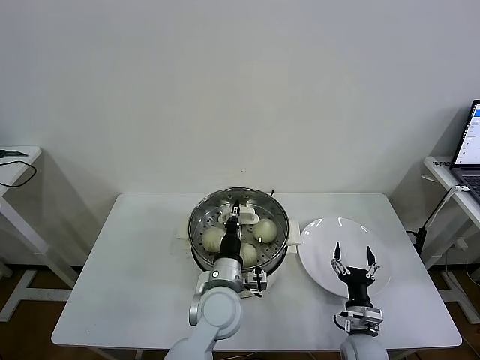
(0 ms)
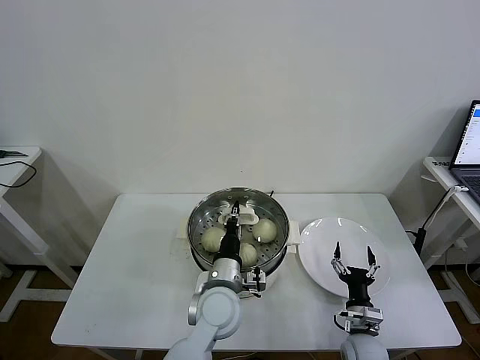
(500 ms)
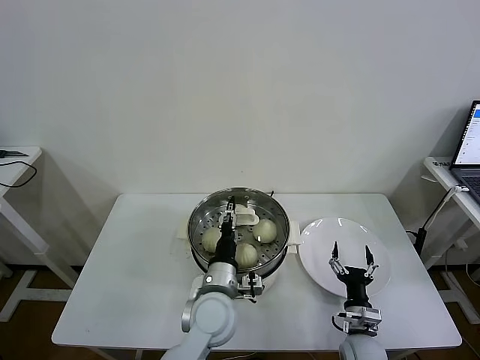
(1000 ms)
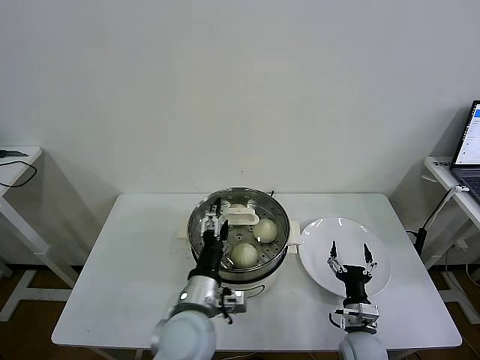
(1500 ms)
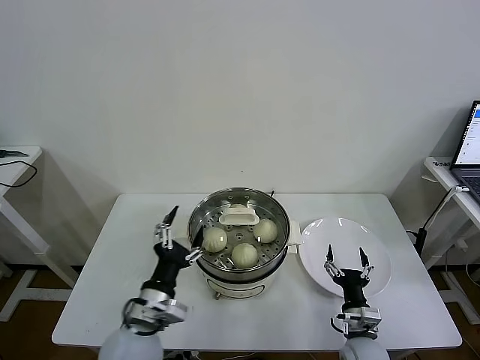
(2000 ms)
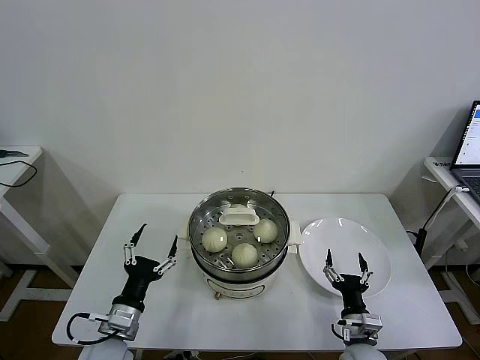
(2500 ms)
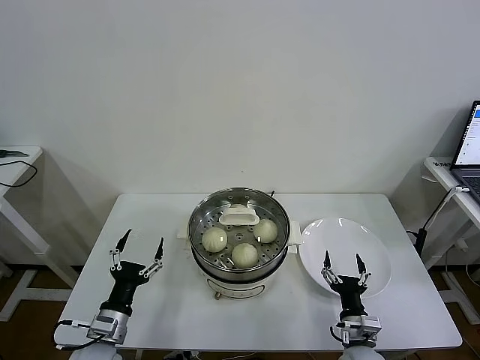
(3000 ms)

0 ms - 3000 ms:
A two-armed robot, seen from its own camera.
Task of the whole recording: take steamed baozi put them in steamer then cover it.
0 ms - 1500 ms: The left gripper goes about 5 cm backward, and opens up.
1500 ms - 3000 ms: The left gripper heads to the left and downward, covering approximately 20 cm.

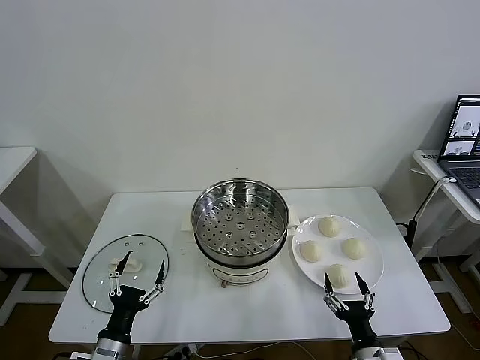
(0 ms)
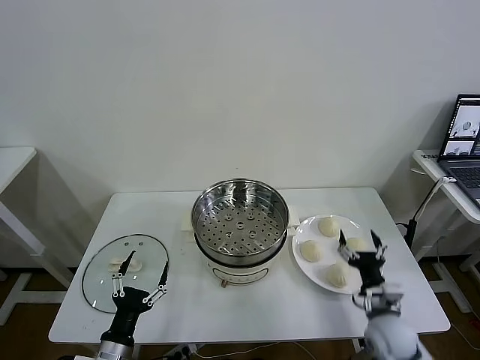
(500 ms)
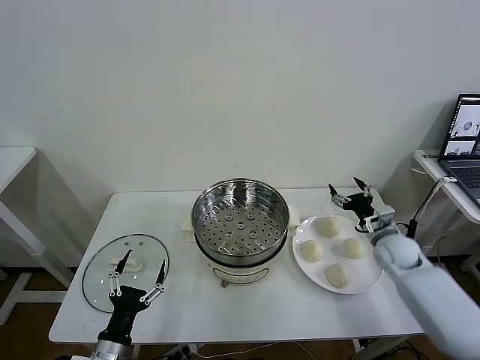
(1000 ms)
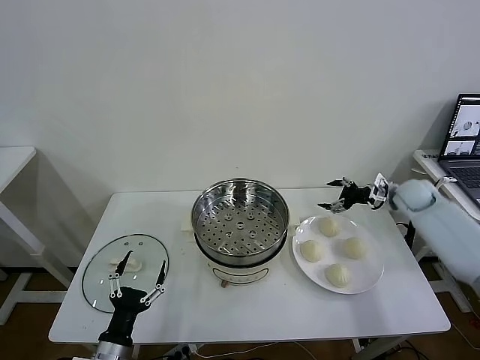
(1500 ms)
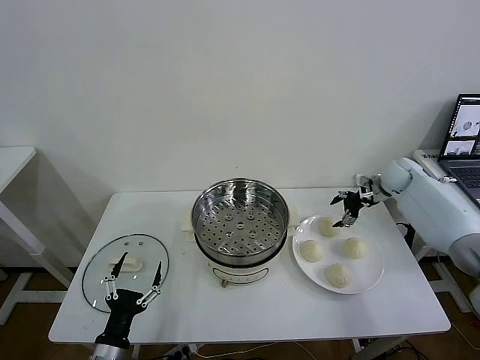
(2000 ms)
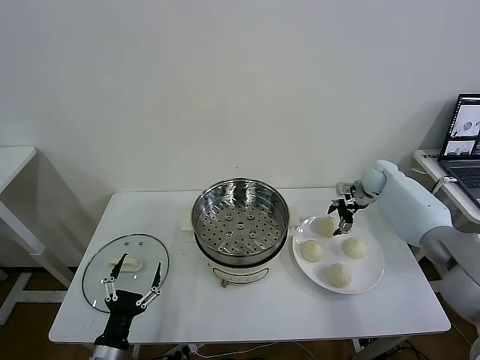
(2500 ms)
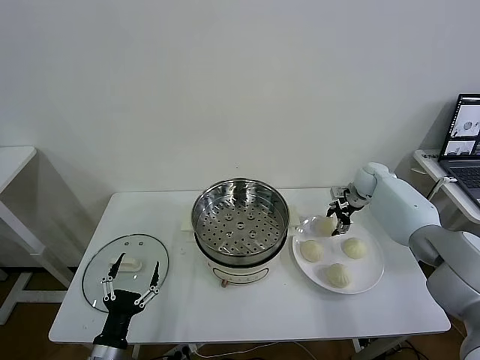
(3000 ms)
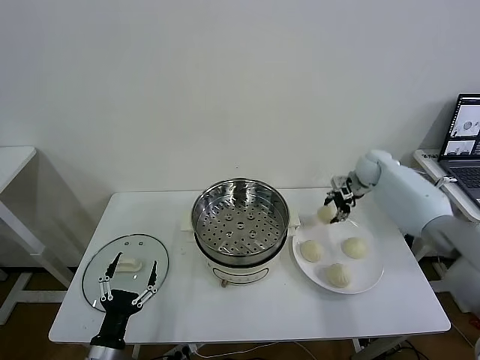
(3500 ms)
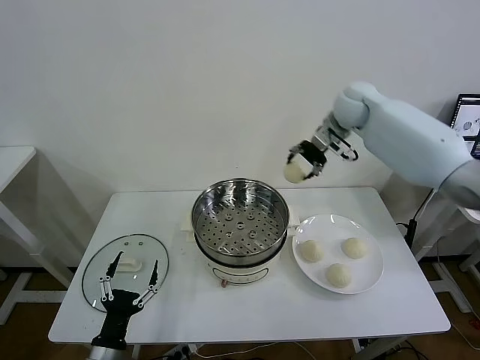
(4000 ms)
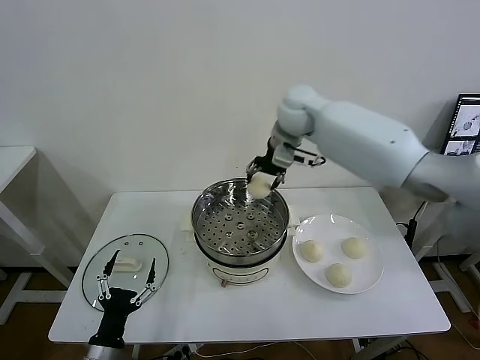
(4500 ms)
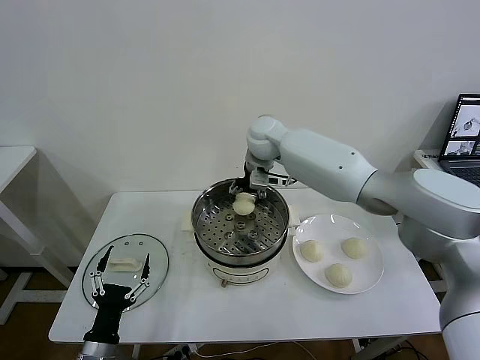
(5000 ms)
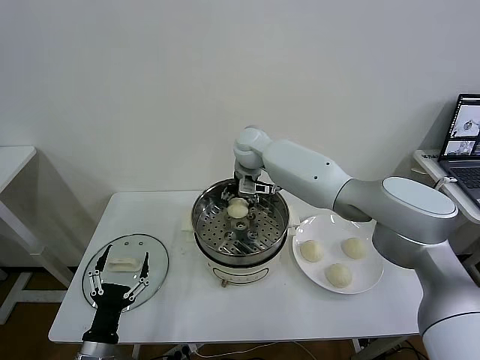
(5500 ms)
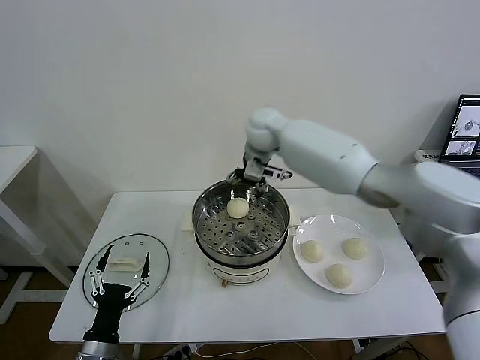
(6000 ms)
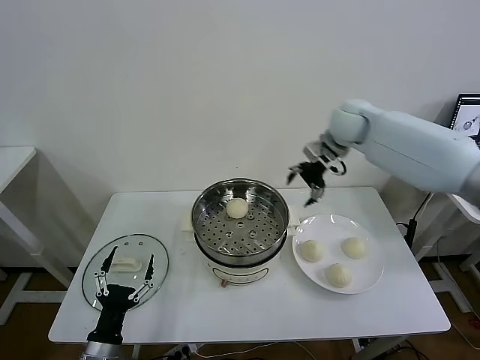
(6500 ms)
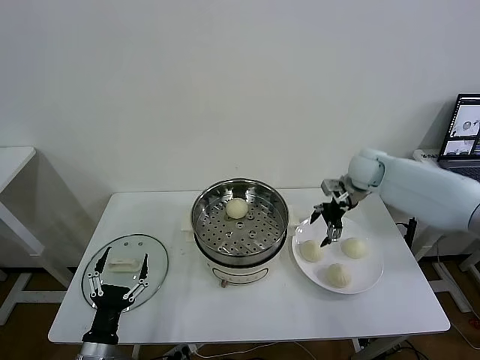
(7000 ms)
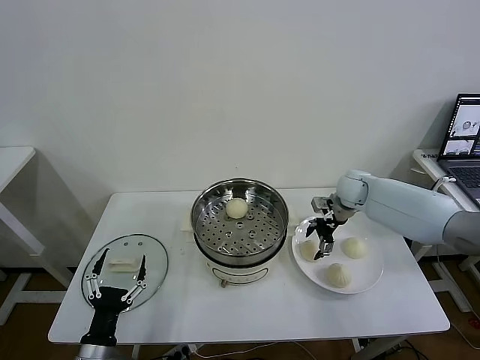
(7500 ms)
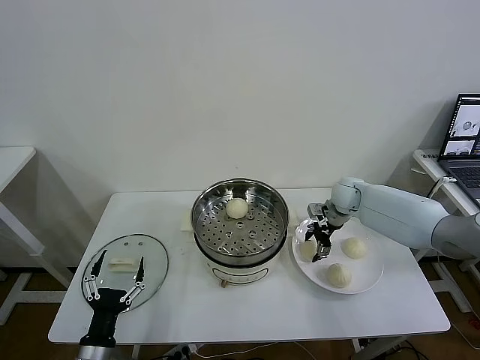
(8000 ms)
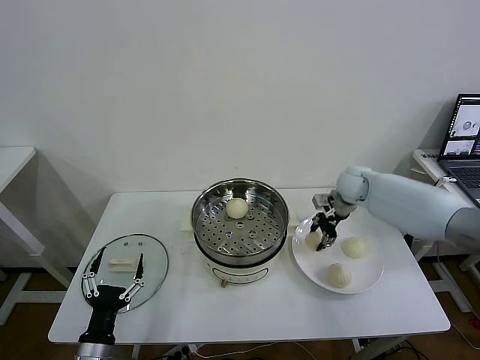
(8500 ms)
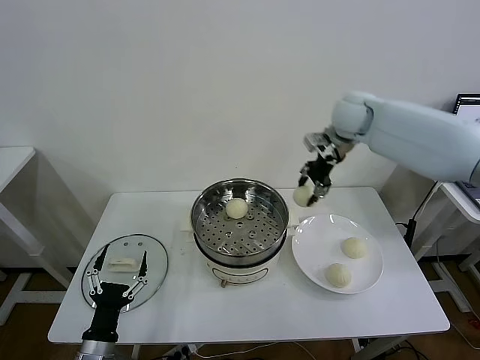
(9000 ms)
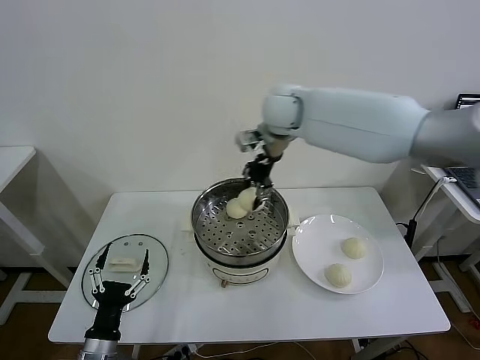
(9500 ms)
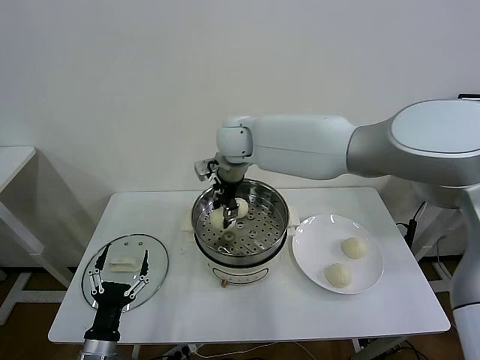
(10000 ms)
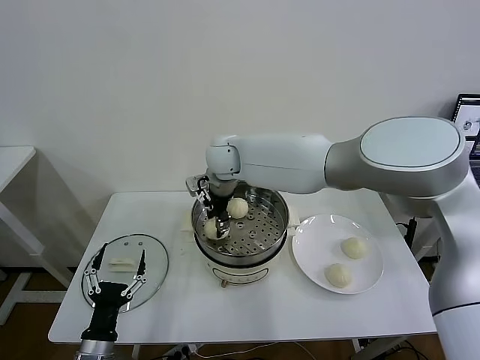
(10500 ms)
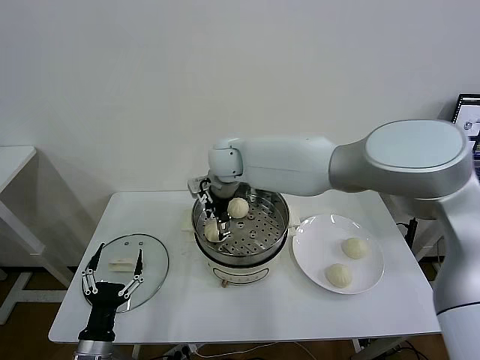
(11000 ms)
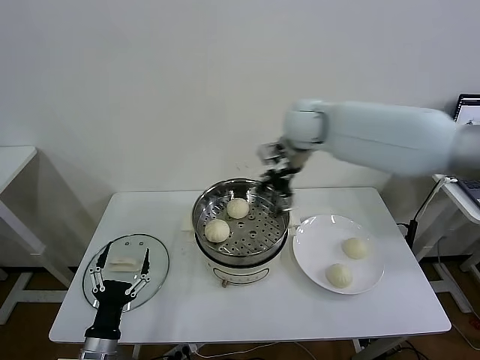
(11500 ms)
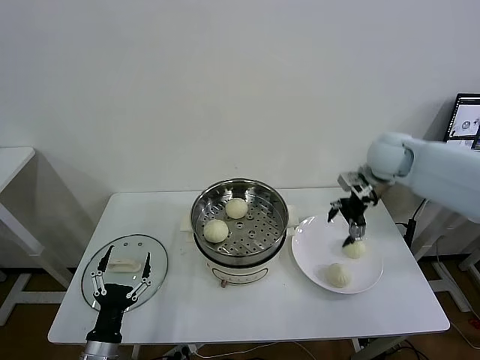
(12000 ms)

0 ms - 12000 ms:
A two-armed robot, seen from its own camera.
Task of the whole recording: take steamed baozi put them in steamer then cover it.
Step, 0 ms - 3000 ms: Grasp the baozi in the plate with right gripper.
Step, 3500 ms - 5500 ms: Place the baozi on the steamer with right gripper.
Step, 6000 ms - 8000 ms: Grasp the baozi in the plate with right gripper.
Step, 8500 ms - 10500 ms: Place the baozi on the steamer with right gripper.
2000 ms - 4000 ms: The right gripper moves upward and to the left, approximately 30 cm, and closes up.
4000 ms - 6000 ms: The right gripper goes roughly 15 cm to the left, and opens.
6000 ms - 8000 ms: The right gripper is displaced downward and to the right by about 30 cm, and closes its fingers.
8000 ms - 10000 ms: The right gripper heads to the left and upward, covering approximately 35 cm, and closes its fingers.
10000 ms - 12000 ms: The right gripper travels to the right by about 35 cm, and opens up.

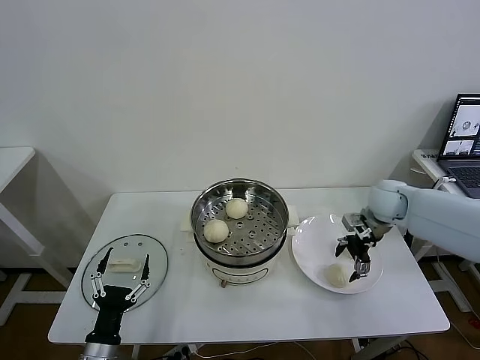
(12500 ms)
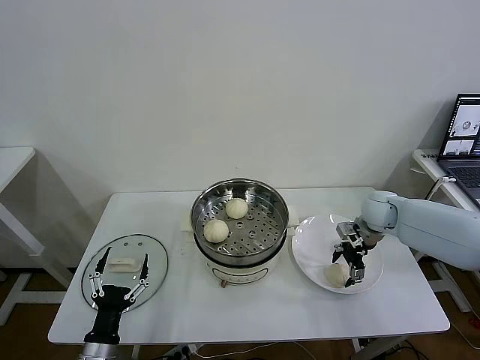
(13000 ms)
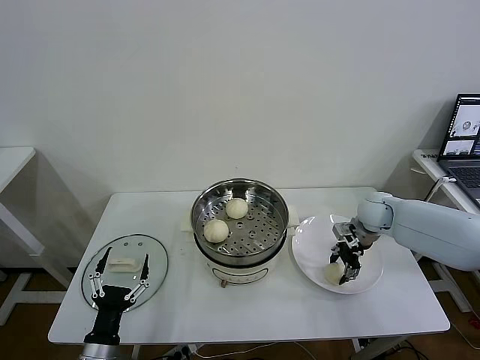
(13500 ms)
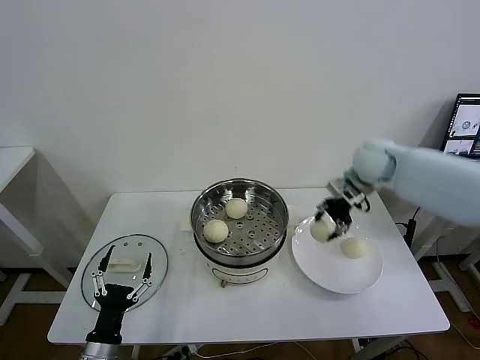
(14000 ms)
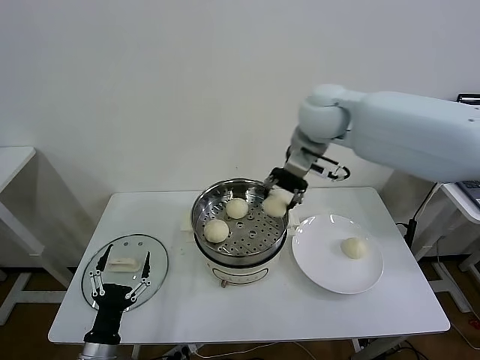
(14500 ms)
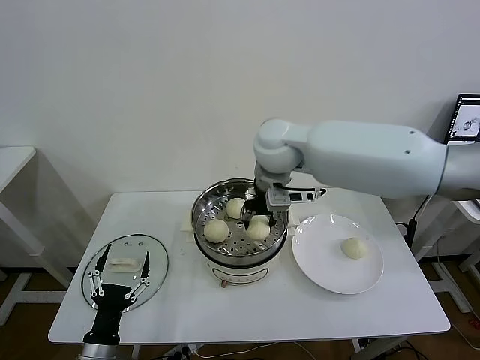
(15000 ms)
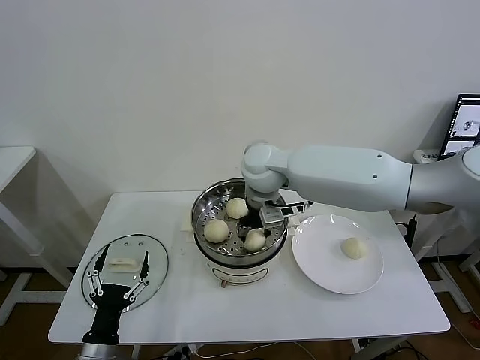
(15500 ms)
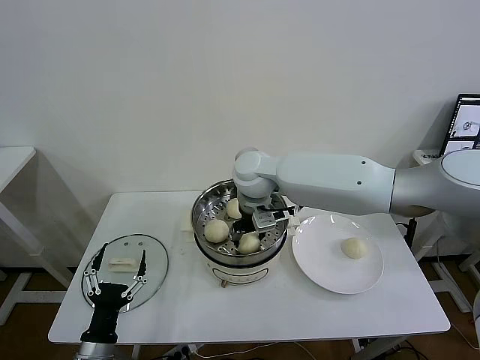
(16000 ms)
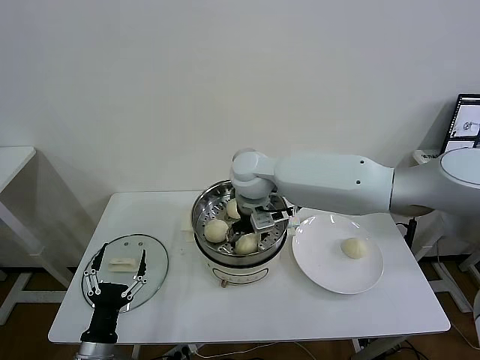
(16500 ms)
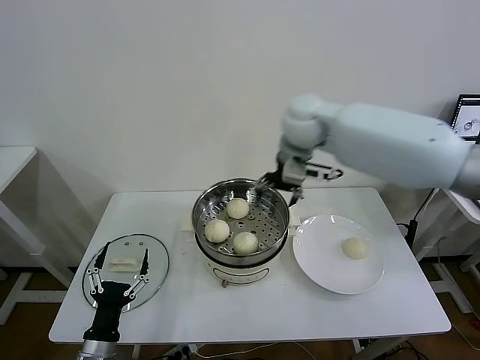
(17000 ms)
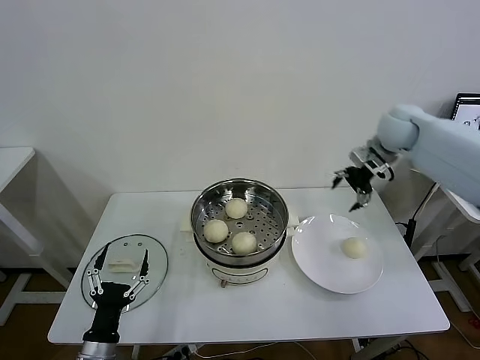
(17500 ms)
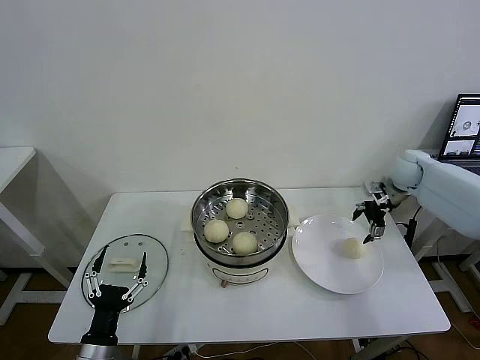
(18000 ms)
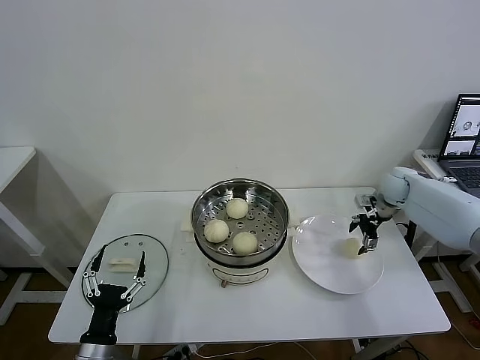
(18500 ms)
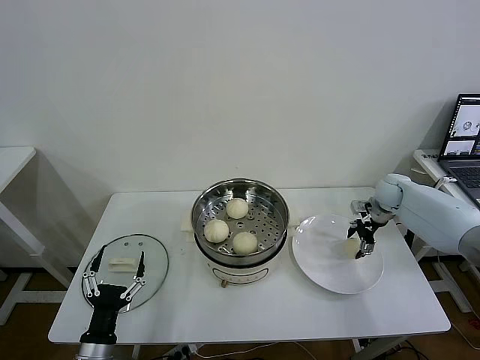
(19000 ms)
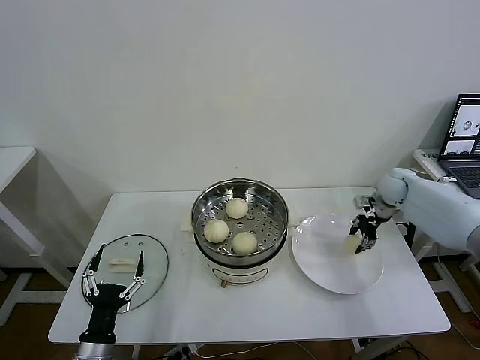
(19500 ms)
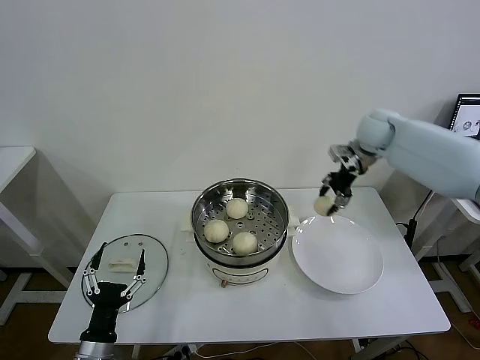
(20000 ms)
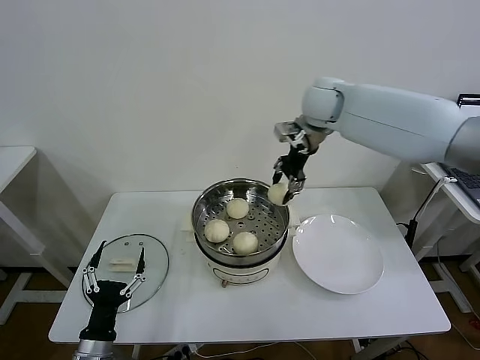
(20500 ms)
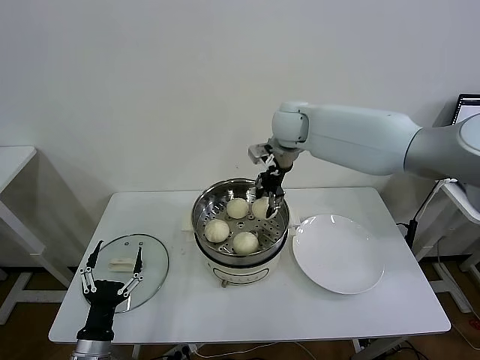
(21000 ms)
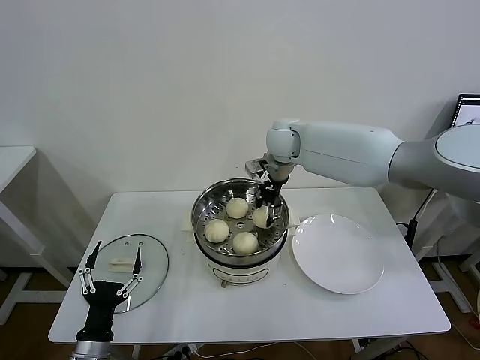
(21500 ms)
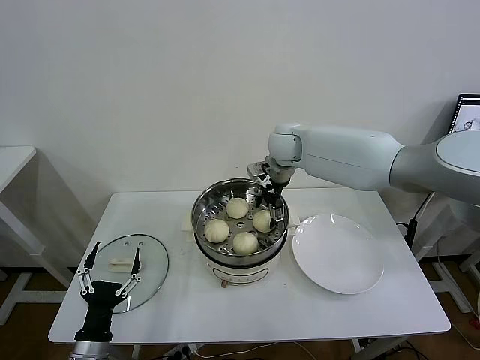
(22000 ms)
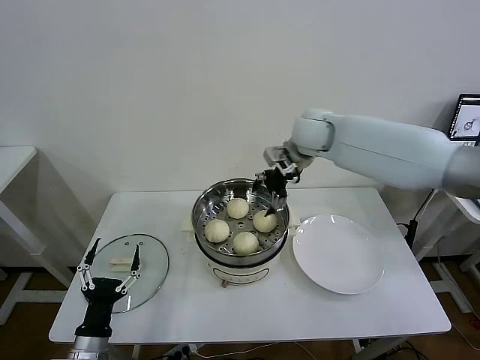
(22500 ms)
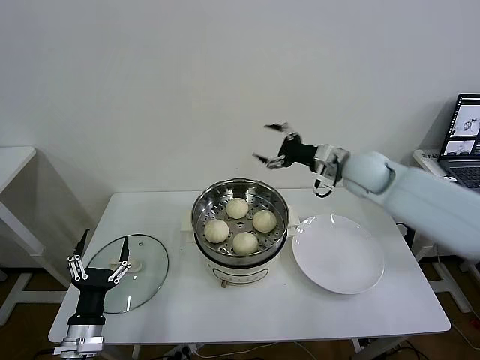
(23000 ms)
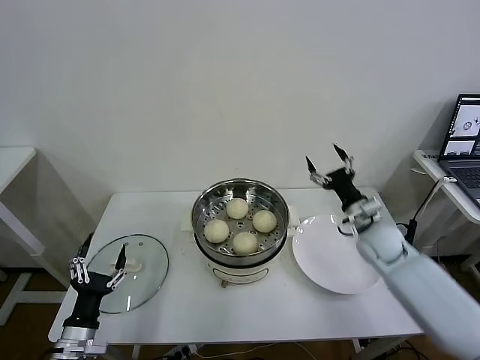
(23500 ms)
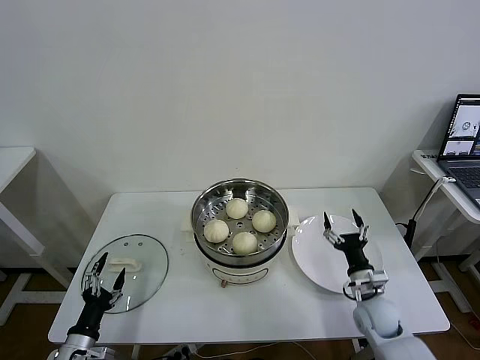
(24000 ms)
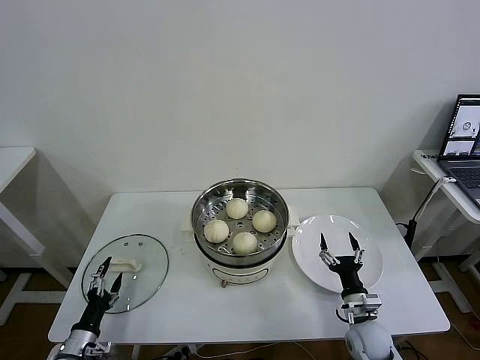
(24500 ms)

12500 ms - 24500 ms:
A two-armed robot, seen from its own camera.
Task of the whole recording: take steamed baozi put them in steamer then cover it.
Step, 13500 ms - 16000 ms: Place the baozi on the steamer with right gripper.
Step, 16500 ms - 19000 ms: Grasp the baozi in the plate with right gripper.
Step, 19500 ms - 22000 ms: Place the baozi on the steamer with right gripper.
12500 ms - 14500 ms: The right gripper heads upward and to the left, covering about 30 cm, and closes its fingers.
14500 ms - 16500 ms: The right gripper travels downward and to the left by about 15 cm, and opens.
16500 ms - 18500 ms: The right gripper goes roughly 40 cm to the right.
18500 ms - 20500 ms: The right gripper travels to the left and upward by approximately 35 cm, and closes its fingers.
20500 ms - 22500 ms: The right gripper shifts about 5 cm downward, and opens its fingers.
22500 ms - 24500 ms: The right gripper travels downward and backward by roughly 50 cm. Meanwhile the left gripper travels to the left and downward by some 15 cm.
